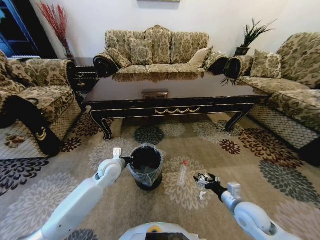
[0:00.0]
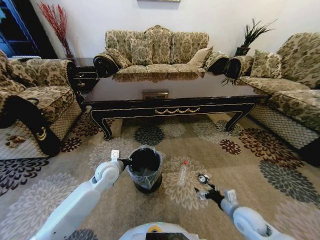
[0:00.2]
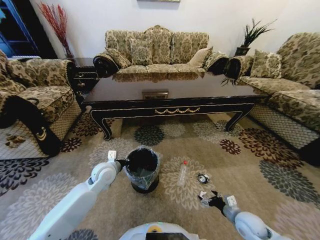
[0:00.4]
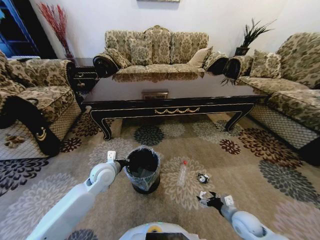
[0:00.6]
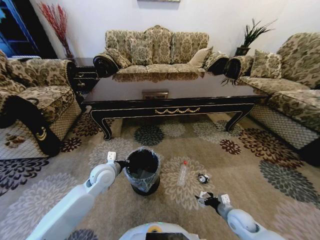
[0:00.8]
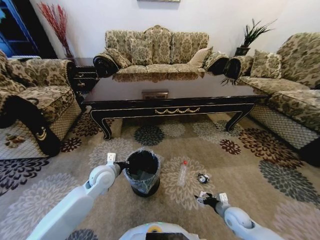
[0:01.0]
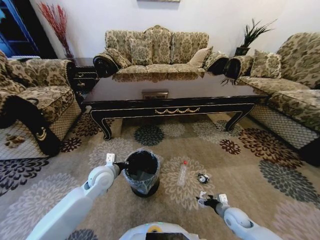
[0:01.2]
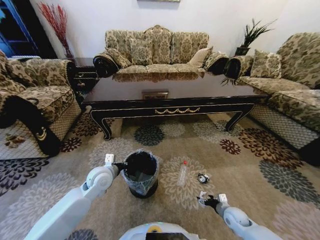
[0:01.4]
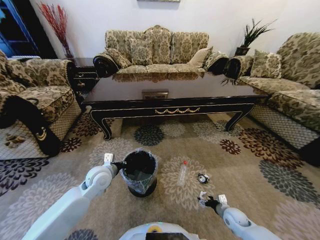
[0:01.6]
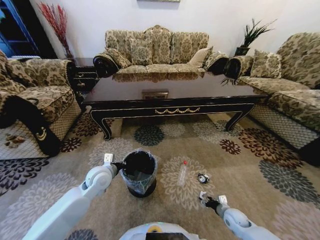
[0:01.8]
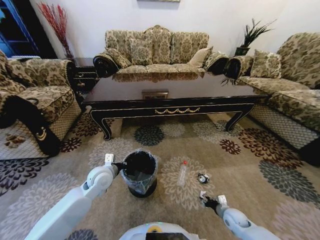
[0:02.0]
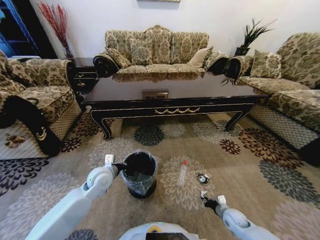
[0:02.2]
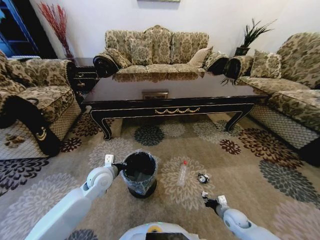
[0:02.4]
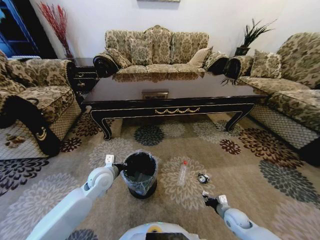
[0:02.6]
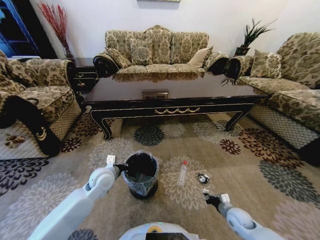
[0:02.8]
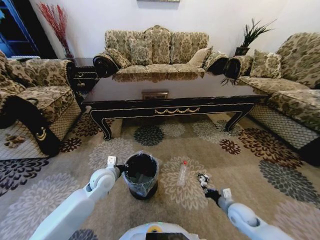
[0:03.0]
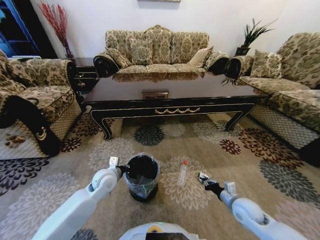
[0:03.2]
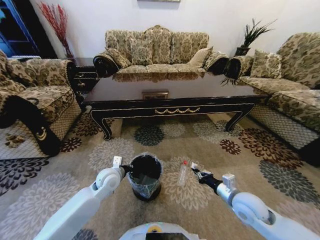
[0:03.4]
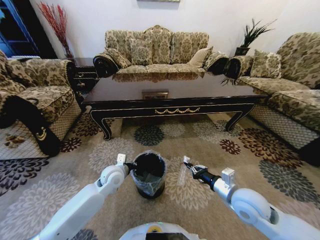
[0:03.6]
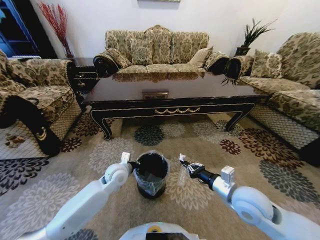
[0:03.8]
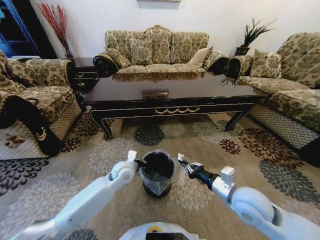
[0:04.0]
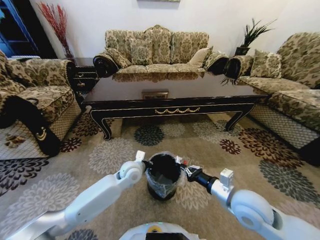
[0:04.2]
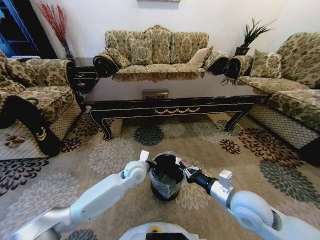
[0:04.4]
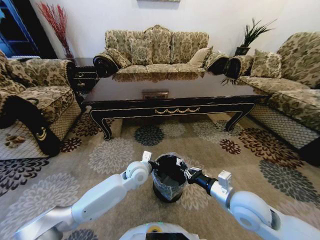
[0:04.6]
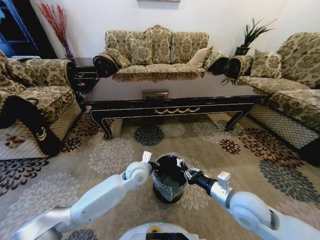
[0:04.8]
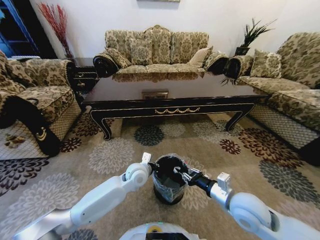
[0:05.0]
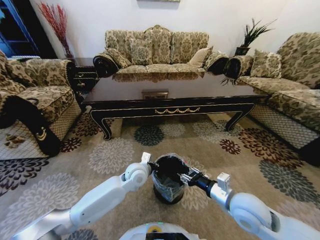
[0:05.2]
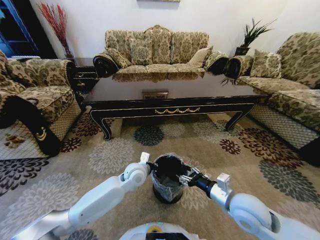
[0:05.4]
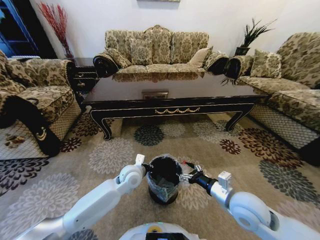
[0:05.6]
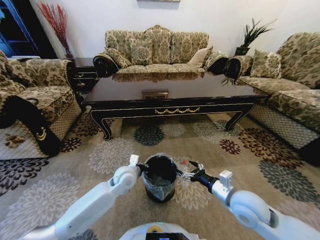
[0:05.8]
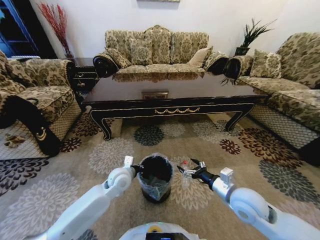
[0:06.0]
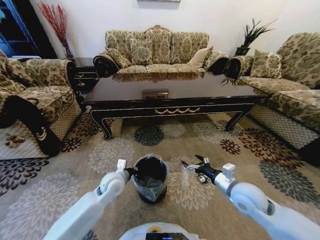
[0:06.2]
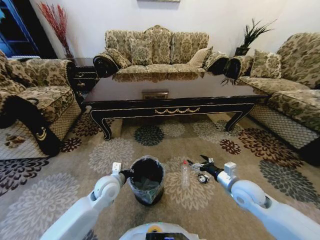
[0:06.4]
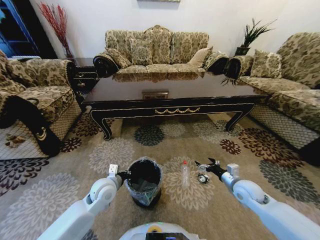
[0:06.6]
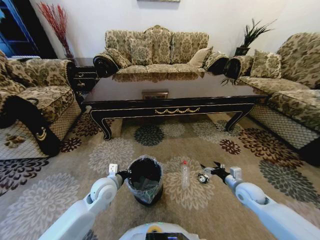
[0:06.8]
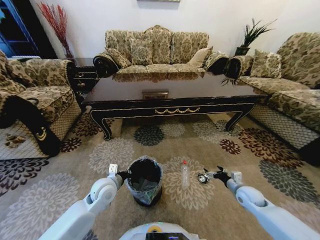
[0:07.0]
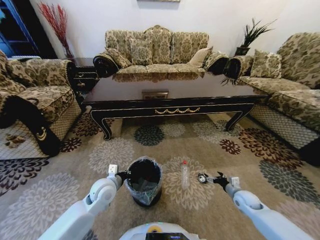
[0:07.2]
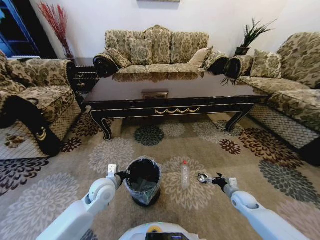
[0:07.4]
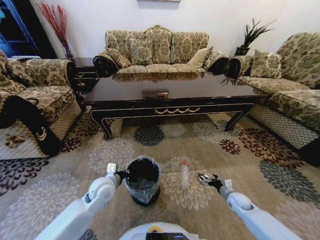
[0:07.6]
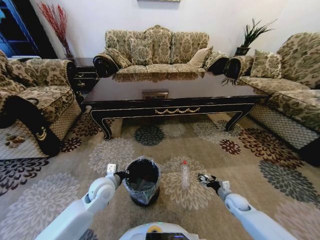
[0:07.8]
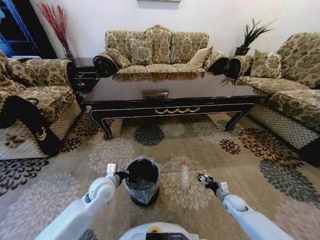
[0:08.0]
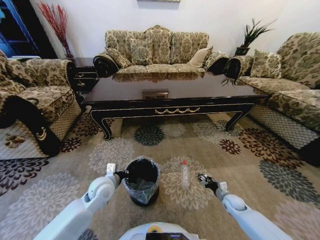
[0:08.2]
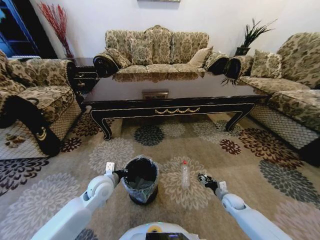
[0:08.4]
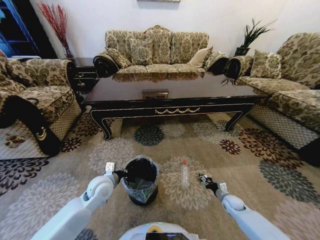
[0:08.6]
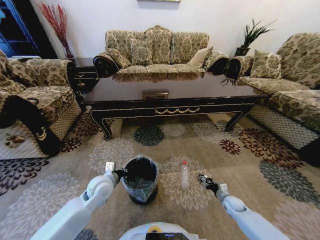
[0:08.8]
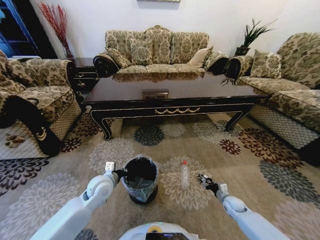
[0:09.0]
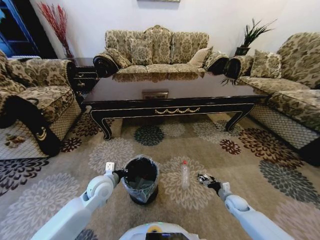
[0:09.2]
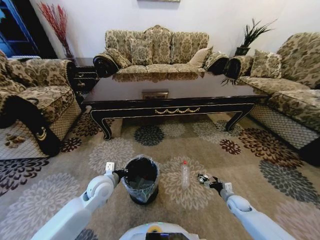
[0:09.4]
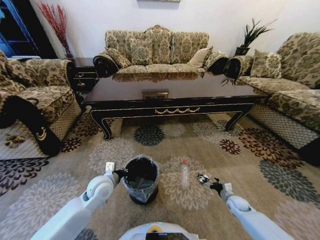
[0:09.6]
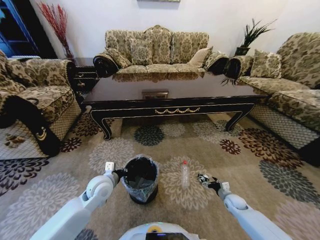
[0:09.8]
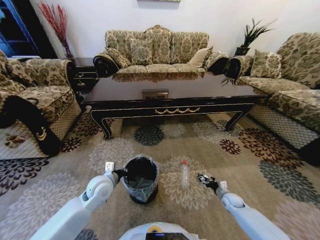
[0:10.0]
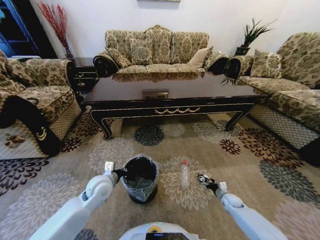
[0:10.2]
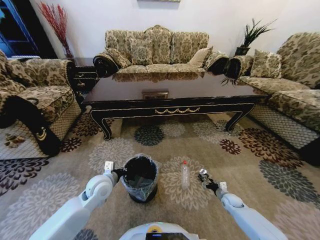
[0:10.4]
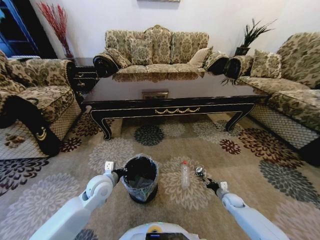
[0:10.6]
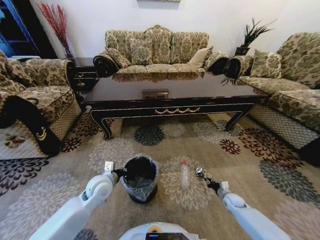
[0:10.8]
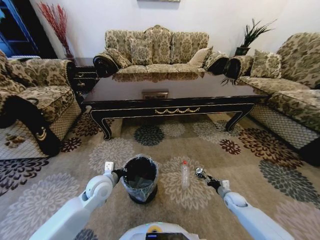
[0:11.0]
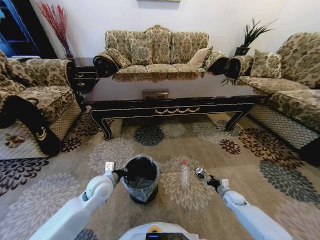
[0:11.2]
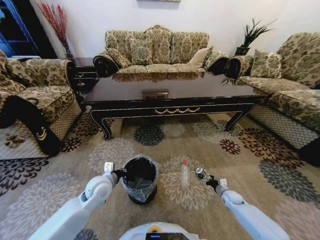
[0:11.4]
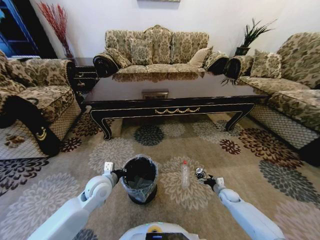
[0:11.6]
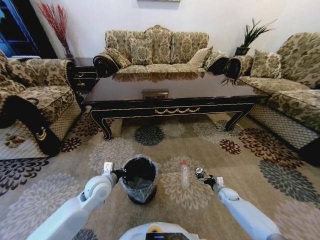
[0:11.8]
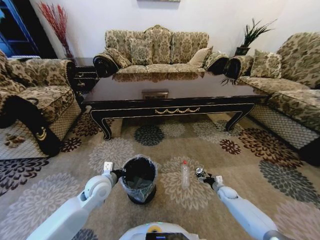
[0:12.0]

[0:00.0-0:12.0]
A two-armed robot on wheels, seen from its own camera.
Task of the whole recording: Move to the front of the table and pick up the trash from the floor, then place it into the trash bin.
0:00.0 to 0:01.6: The left gripper moves some 5 cm; the right gripper goes approximately 15 cm downward.
0:01.6 to 0:03.0: The right gripper moves upward, some 10 cm, and closes its fingers.
0:03.0 to 0:04.4: The right gripper travels upward and to the left by about 25 cm; the left gripper is displaced to the right by about 15 cm.
0:04.4 to 0:06.0: The left gripper moves to the left, approximately 10 cm, while the right gripper opens.
0:06.0 to 0:07.6: The left gripper heads to the left, covering roughly 5 cm. The right gripper is displaced downward and to the right by roughly 25 cm.
0:07.6 to 0:09.0: The right gripper closes up.
0:09.0 to 0:10.4: The grippers make only small movements.
0:10.4 to 0:12.0: The right gripper closes and opens again.

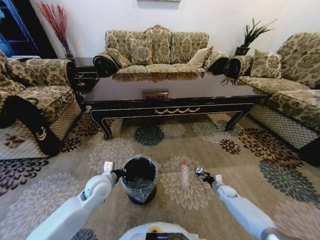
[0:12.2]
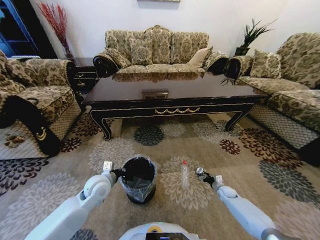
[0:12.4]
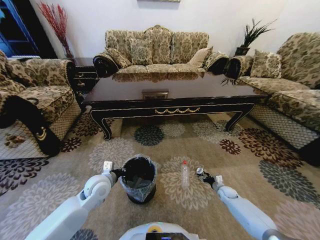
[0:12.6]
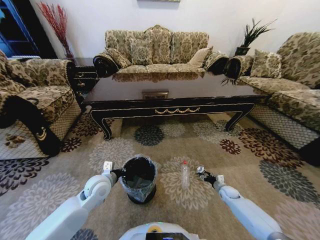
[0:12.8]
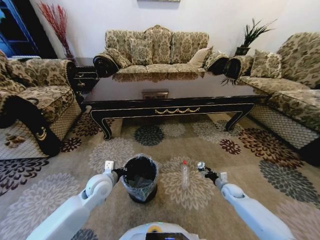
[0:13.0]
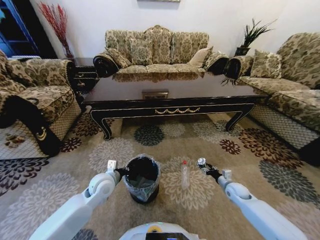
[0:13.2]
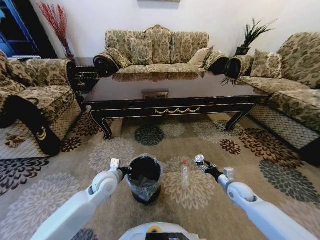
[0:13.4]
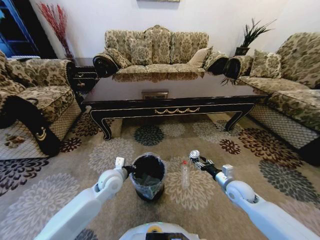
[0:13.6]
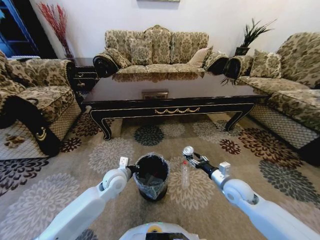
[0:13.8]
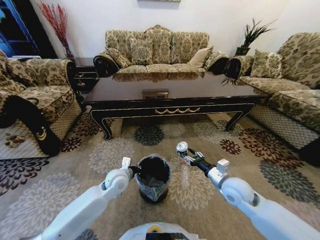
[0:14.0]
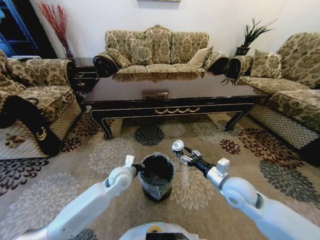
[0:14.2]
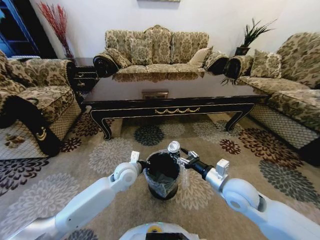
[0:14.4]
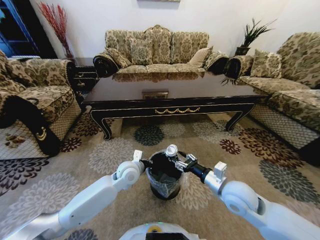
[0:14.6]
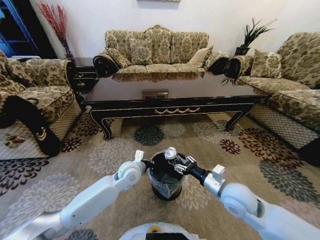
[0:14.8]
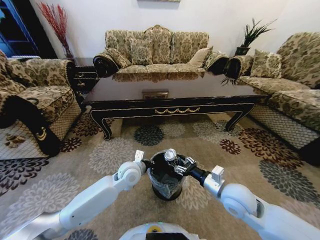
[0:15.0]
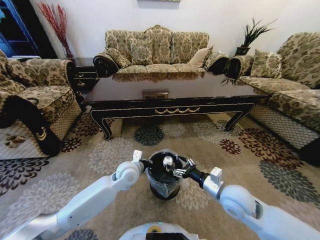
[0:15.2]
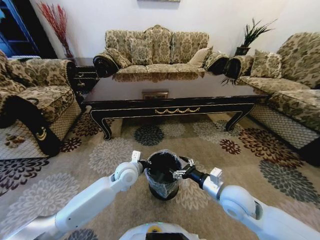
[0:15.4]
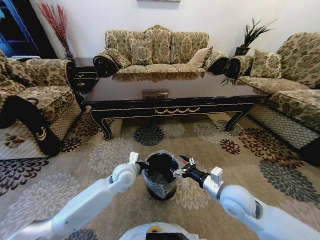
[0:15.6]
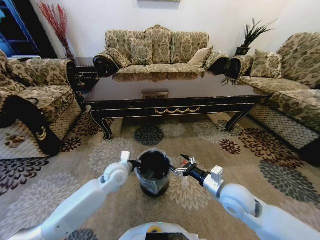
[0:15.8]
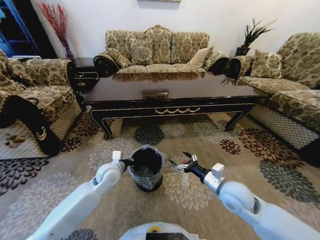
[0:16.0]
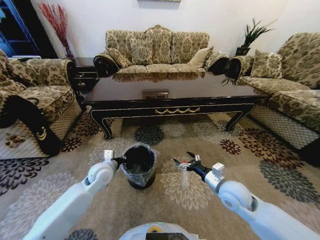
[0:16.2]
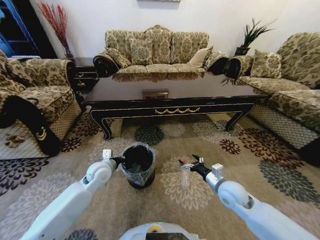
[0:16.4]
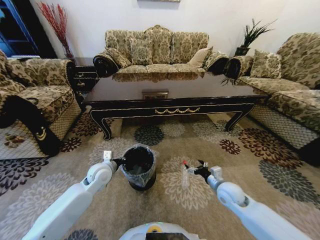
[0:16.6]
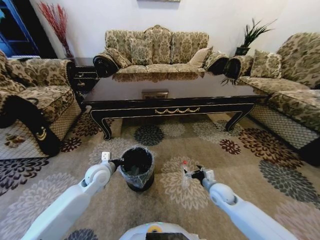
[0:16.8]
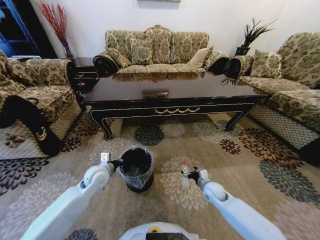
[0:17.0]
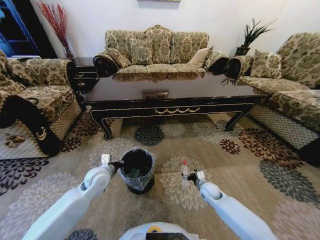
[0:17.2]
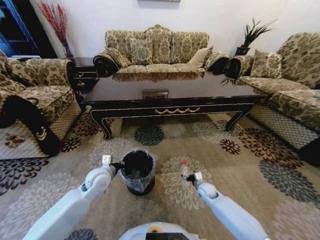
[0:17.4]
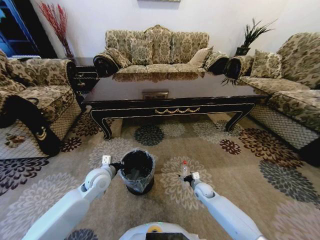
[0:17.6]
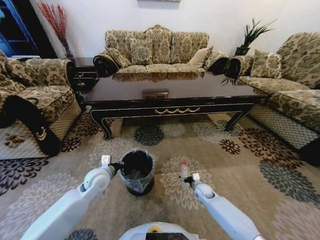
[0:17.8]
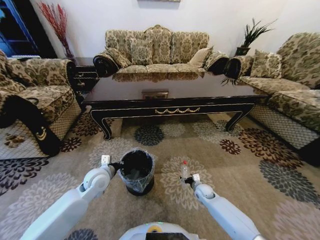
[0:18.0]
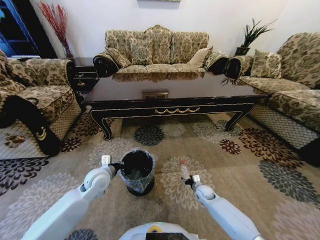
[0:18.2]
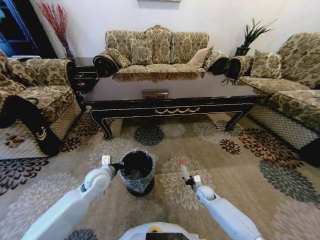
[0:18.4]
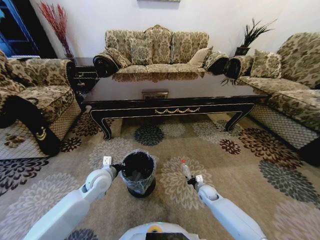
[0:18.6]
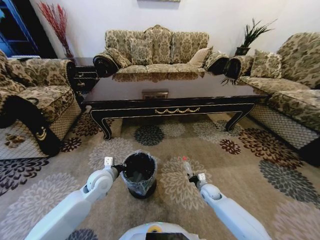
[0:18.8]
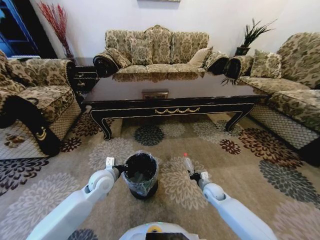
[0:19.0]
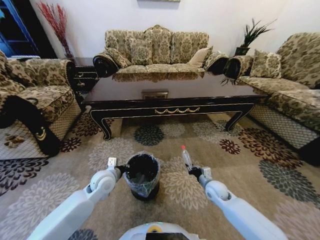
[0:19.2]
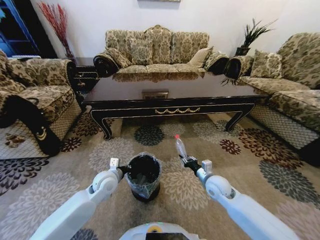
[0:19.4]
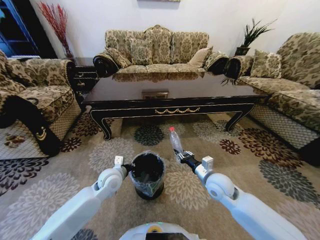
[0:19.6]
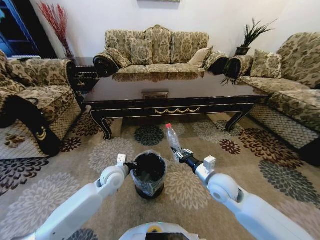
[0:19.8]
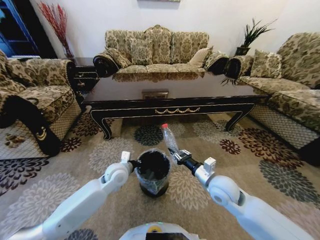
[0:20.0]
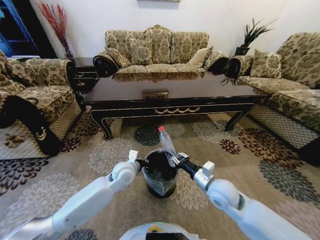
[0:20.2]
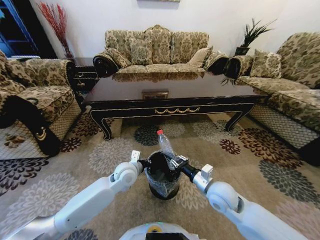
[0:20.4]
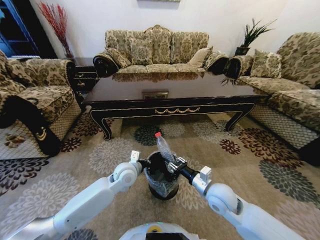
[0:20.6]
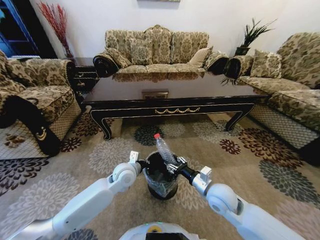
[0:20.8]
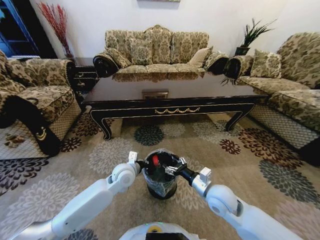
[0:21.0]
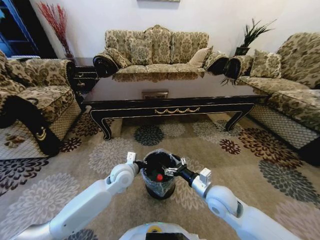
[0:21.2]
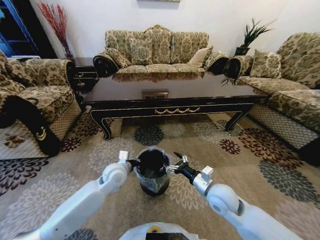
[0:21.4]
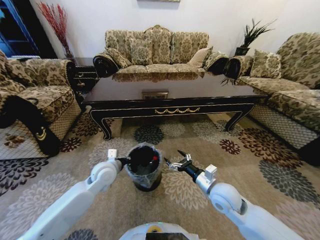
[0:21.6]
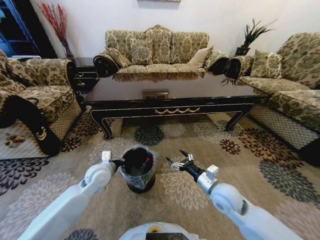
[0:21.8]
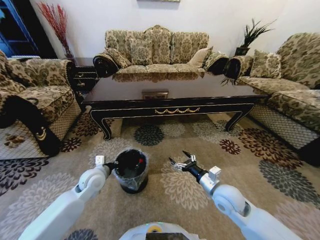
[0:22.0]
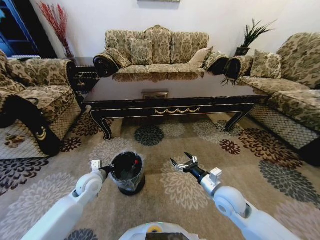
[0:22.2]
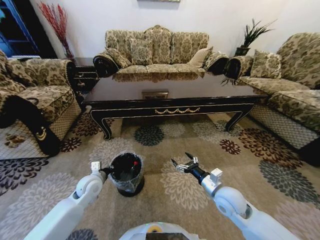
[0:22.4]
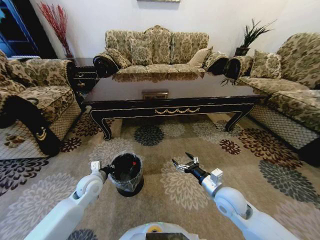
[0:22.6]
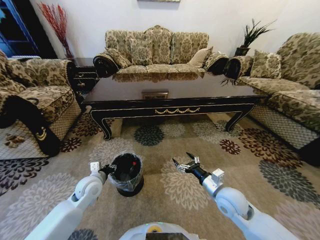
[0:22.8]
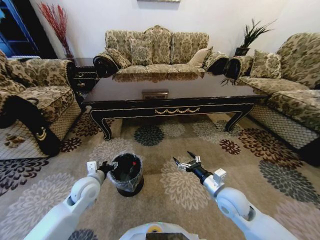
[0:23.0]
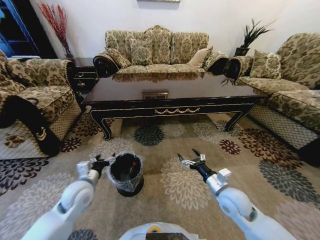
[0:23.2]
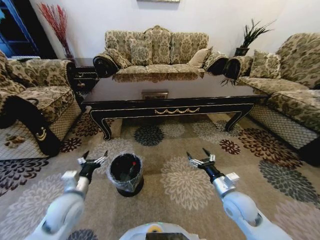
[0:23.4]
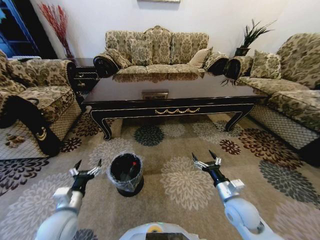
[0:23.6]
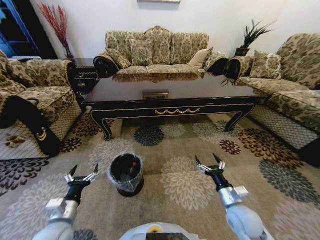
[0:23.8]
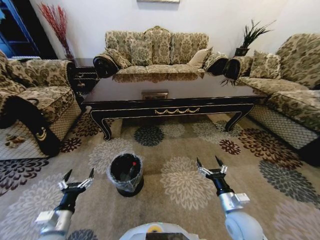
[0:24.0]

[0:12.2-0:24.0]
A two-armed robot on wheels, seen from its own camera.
Task of the whole recording: Move to the front of the table and pick up the trash from the floor, then place it into the trash bin.
0:12.2 to 0:13.6: The right gripper is displaced upward by about 20 cm.
0:13.6 to 0:15.2: The left gripper is displaced to the right by roughly 5 cm; the right gripper shifts some 15 cm to the left, upward and backward.
0:15.2 to 0:16.6: The left gripper is displaced to the left by roughly 10 cm, while the right gripper heads downward, covering about 10 cm.
0:16.6 to 0:18.2: The right gripper moves downward, roughly 20 cm.
0:18.2 to 0:19.6: The right gripper heads upward, covering approximately 25 cm, and closes up.
0:19.6 to 0:21.0: The right gripper shifts by about 5 cm, and opens its fingers, while the left gripper is displaced to the right by approximately 5 cm.
0:21.0 to 0:22.6: The left gripper moves to the left, some 15 cm.
0:22.6 to 0:24.0: The left gripper travels backward by about 20 cm, and opens its fingers. Meanwhile the right gripper is displaced backward by roughly 5 cm.
